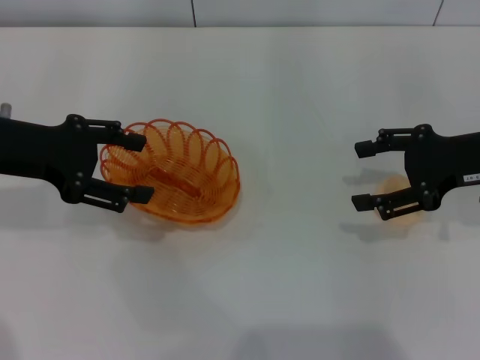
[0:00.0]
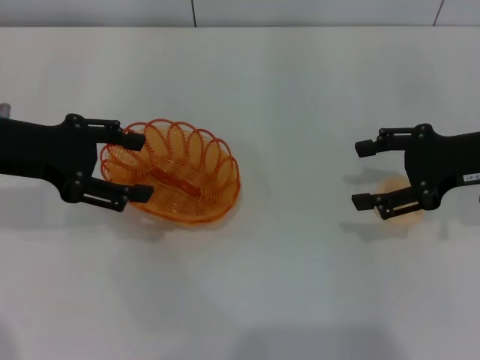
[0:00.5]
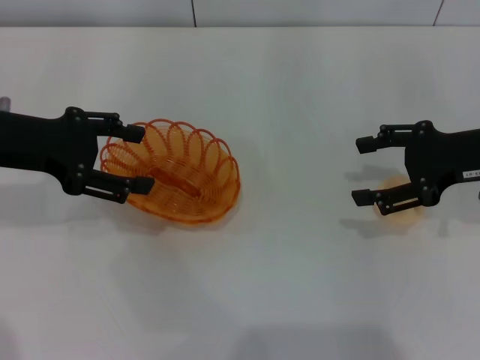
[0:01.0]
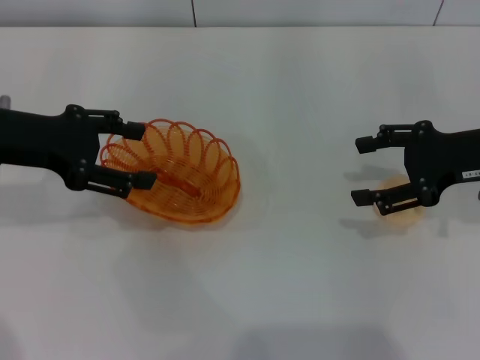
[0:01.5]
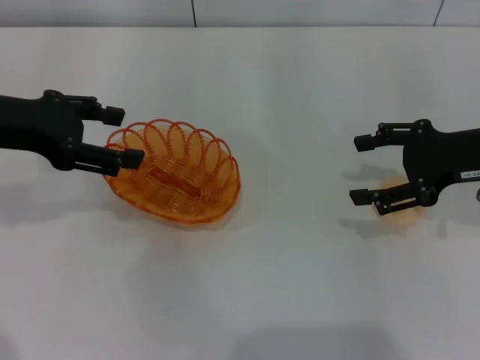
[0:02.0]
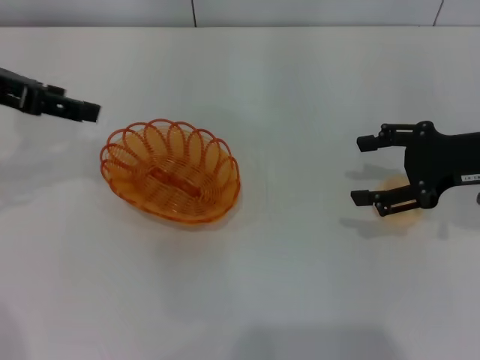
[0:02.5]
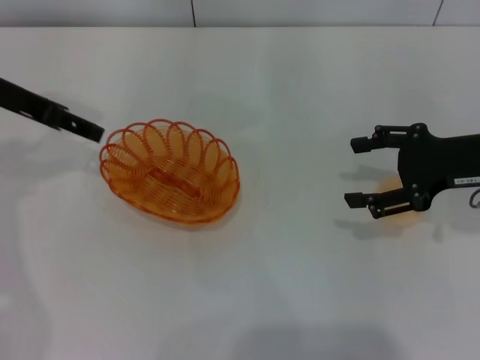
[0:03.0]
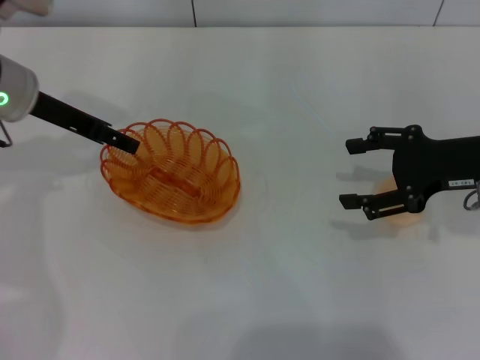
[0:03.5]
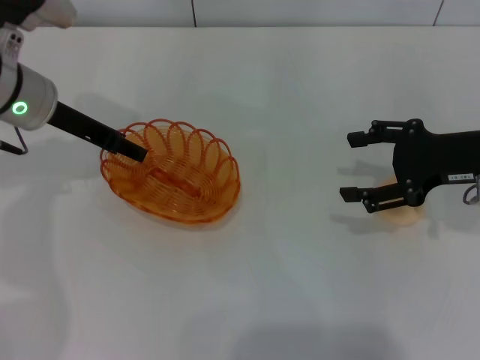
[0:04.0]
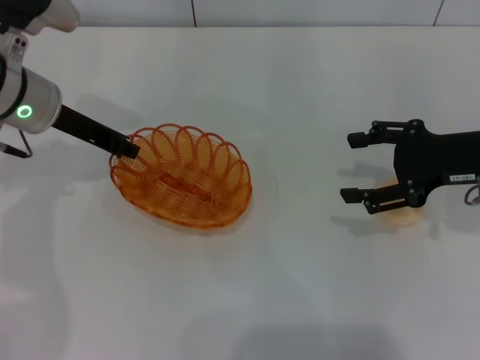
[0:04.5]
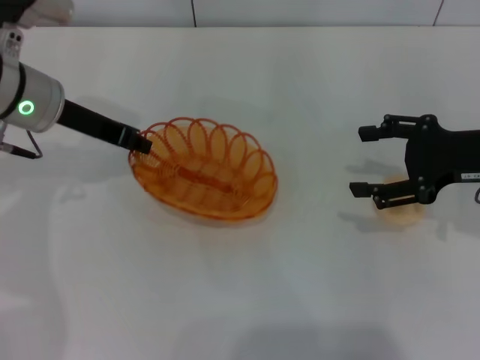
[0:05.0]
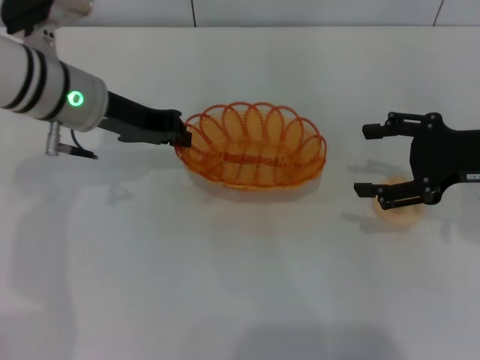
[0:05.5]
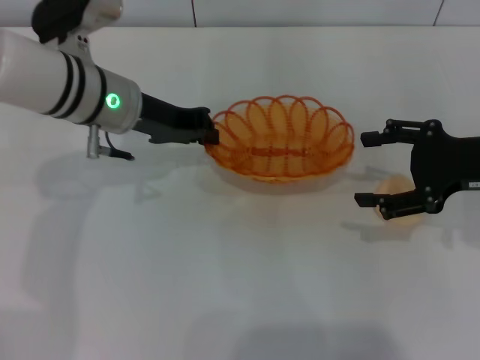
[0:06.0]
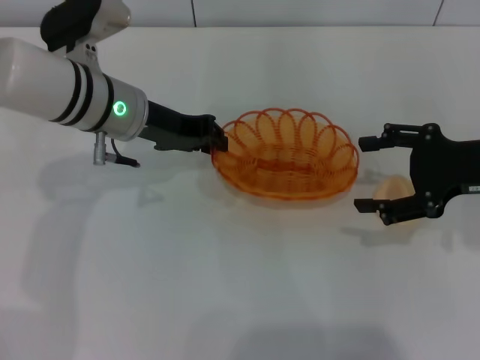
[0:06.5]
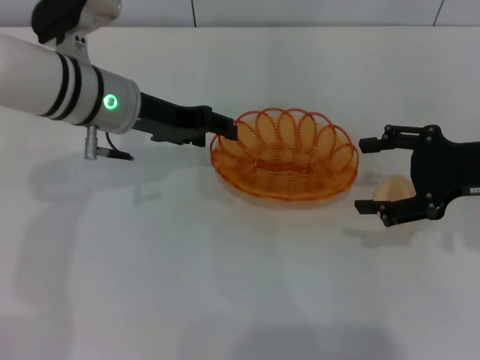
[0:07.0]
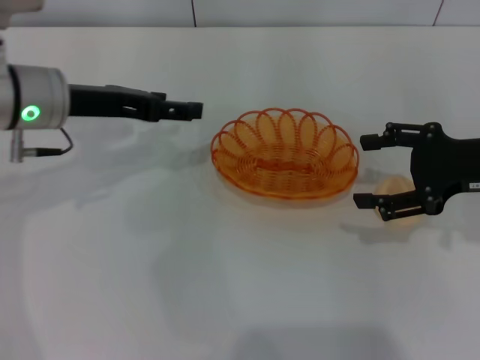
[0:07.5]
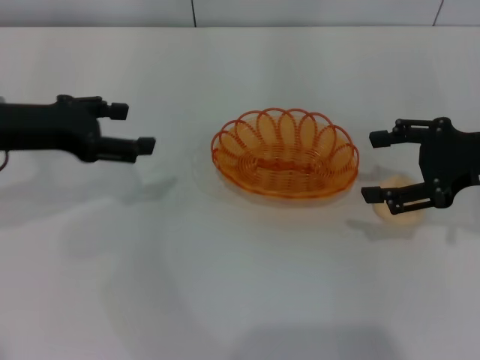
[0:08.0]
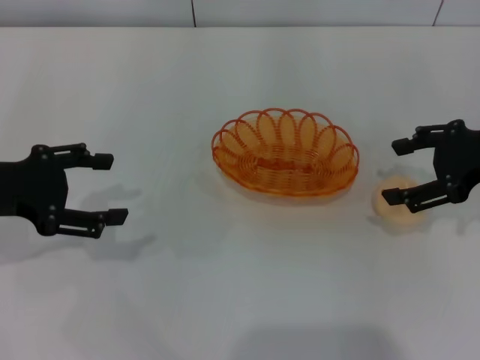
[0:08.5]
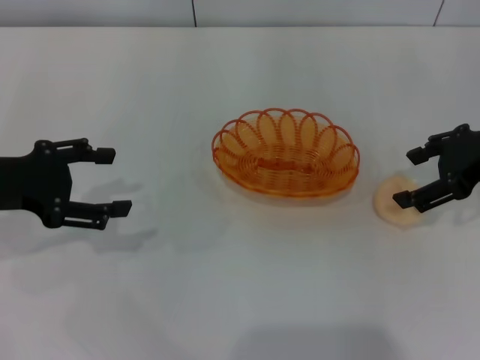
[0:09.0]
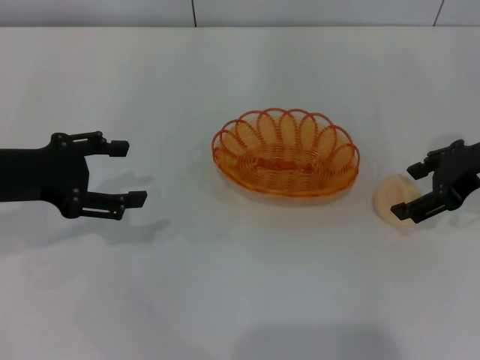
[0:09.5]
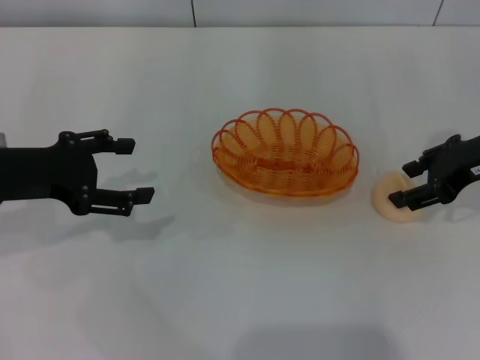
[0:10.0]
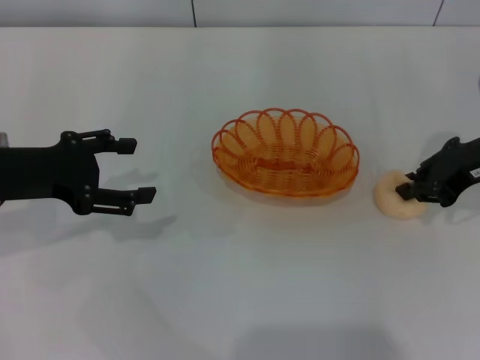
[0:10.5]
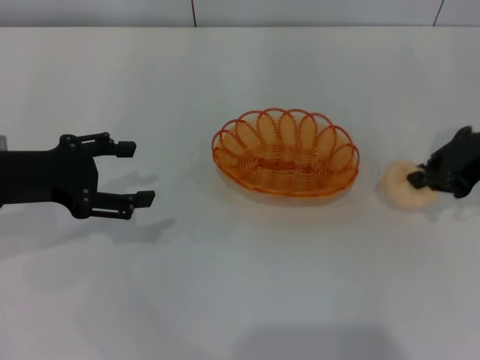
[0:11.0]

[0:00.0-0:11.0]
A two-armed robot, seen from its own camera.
Step, 0:00.0 to 0:05.0: Pick up the basket with the left gripper.
Step, 0:05.5 to 0:07.5: Place the basket in the center of view with the left gripper.
0:00.0 to 0:02.0: The grippers move only a little.
0:02.0 to 0:03.5: The left gripper heads forward, covering about 5 cm.
0:03.5 to 0:05.5: The left gripper is displaced to the right by roughly 5 cm, and closes.
0:05.5 to 0:07.5: The left gripper opens.
0:07.5 to 0:09.0: The left gripper goes approximately 10 cm to the left and backward.
0:09.0 to 0:11.0: The right gripper closes its fingers.

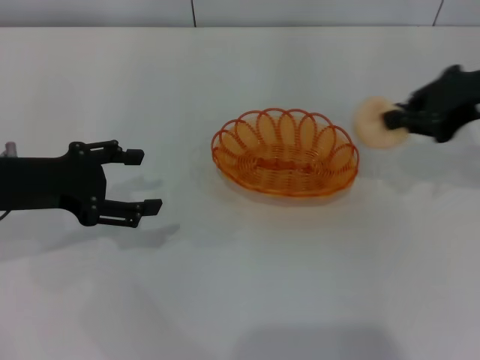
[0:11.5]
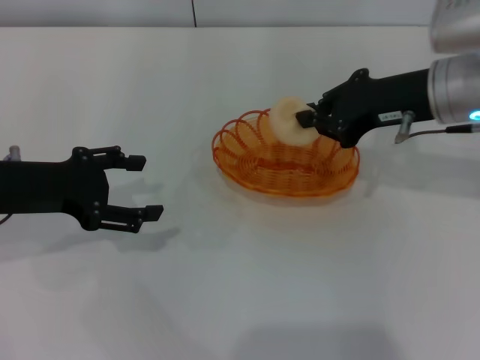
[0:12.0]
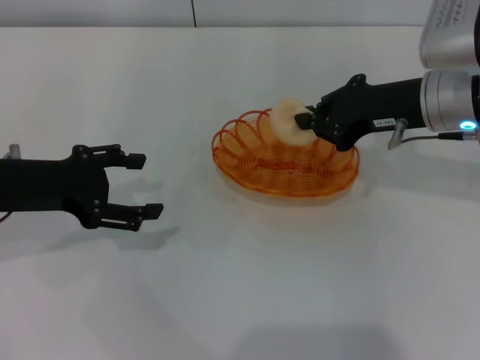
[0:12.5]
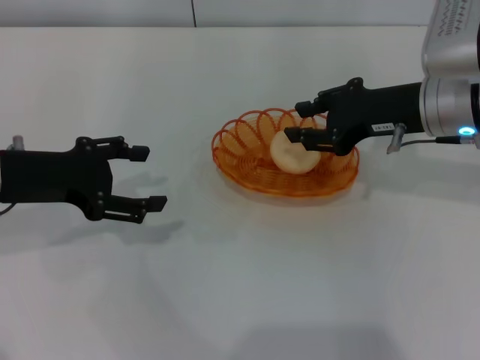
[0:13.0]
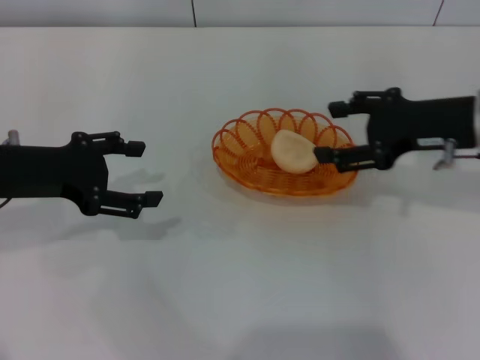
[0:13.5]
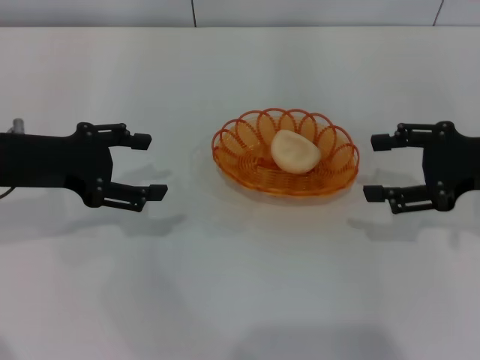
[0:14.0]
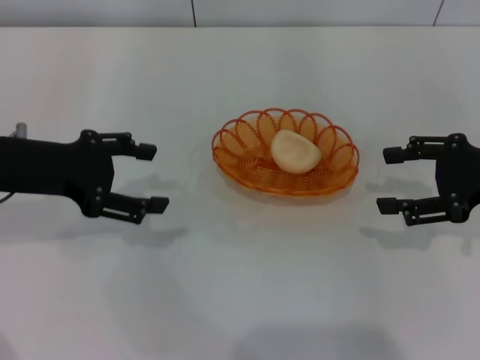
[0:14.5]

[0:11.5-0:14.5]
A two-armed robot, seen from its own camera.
Step, 0:11.5 to 0:13.0: Place the egg yolk pastry into the basket with the right gripper.
0:11.5 to 0:13.0: The right gripper goes approximately 10 cm to the left and downward.
0:13.0 to 0:14.5: The right gripper is displaced to the right and backward by roughly 10 cm, and opens up.
